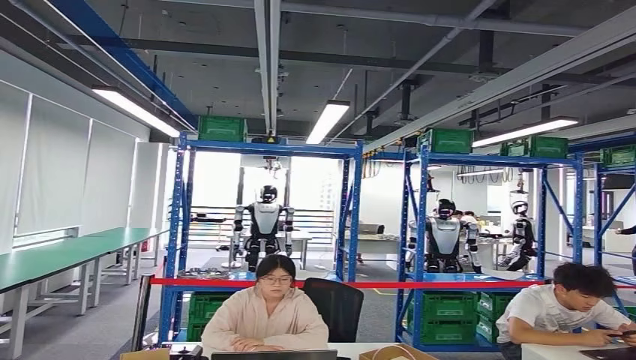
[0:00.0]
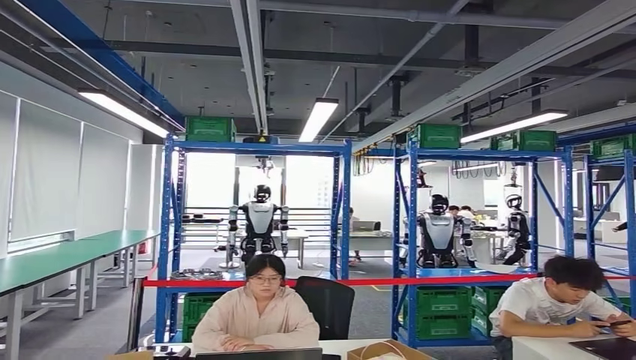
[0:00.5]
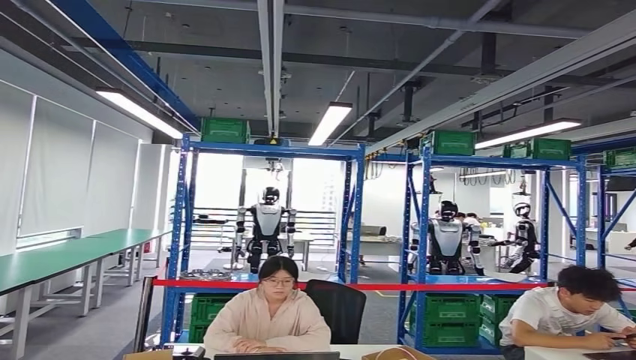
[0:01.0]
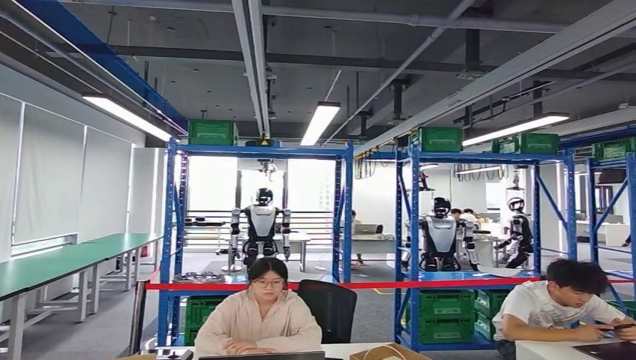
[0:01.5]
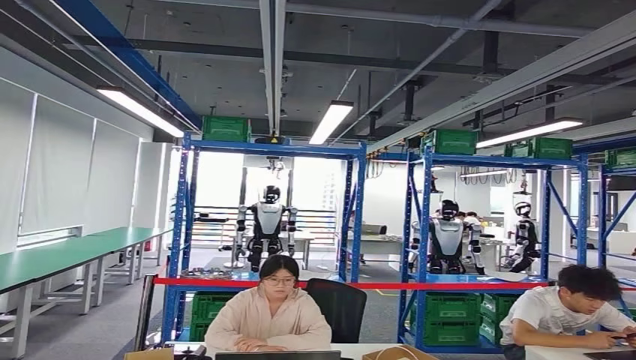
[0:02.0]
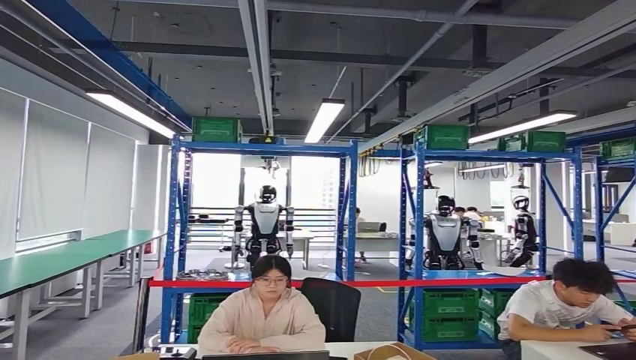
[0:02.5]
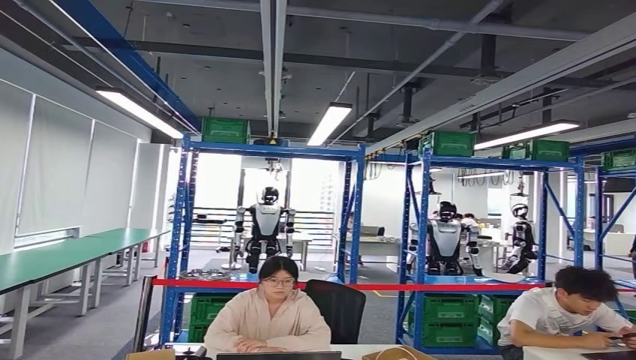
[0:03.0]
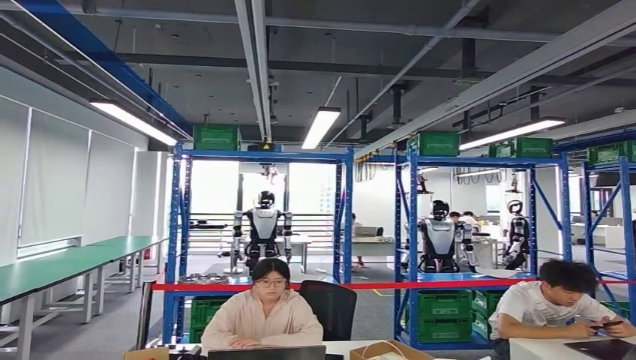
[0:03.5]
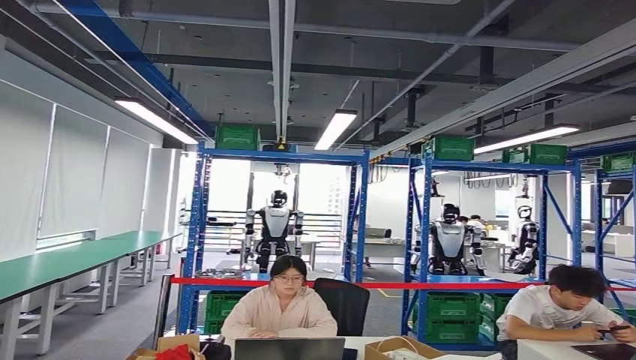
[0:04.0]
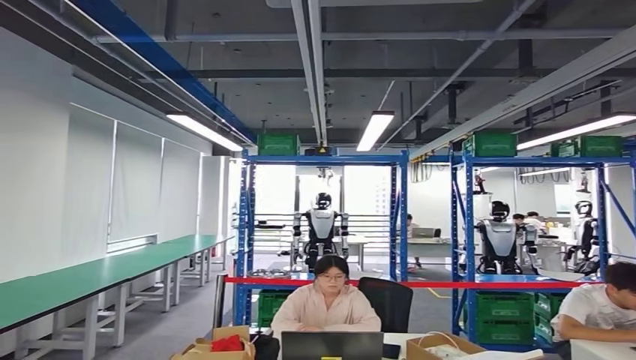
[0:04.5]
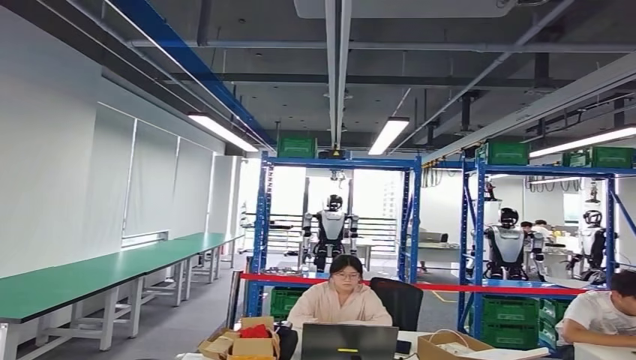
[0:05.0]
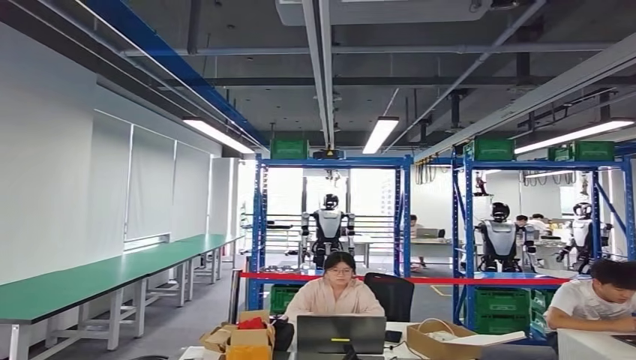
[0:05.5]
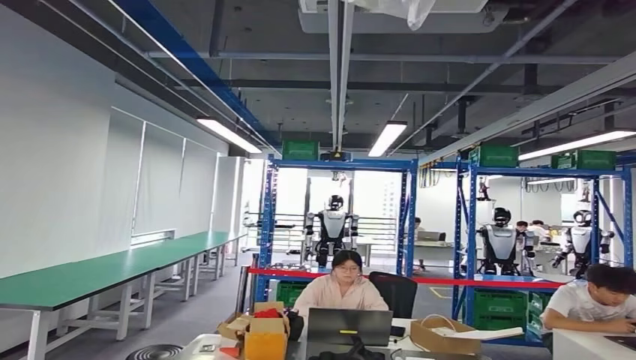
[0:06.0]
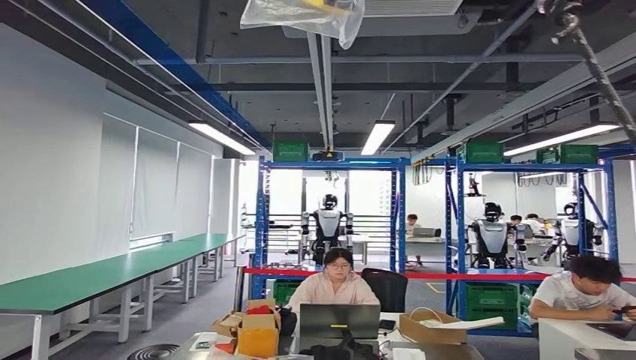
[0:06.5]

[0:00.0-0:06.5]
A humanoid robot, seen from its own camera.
Step, 0:00.0 to 0:02.5: Insert the small component into the corresponding slot on the workbench.
Step, 0:03.0 to 0:06.5: Move to the initial position of the workbench.
